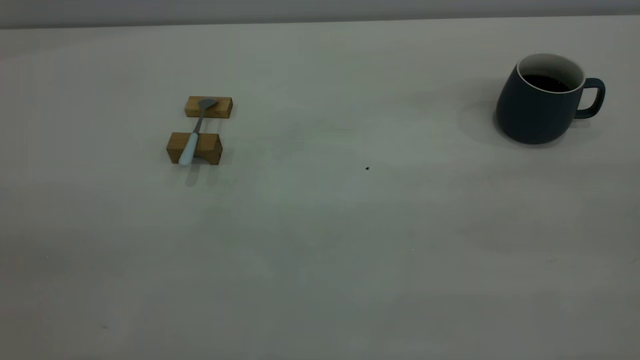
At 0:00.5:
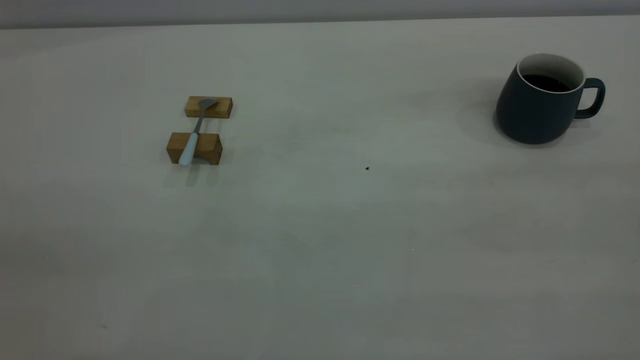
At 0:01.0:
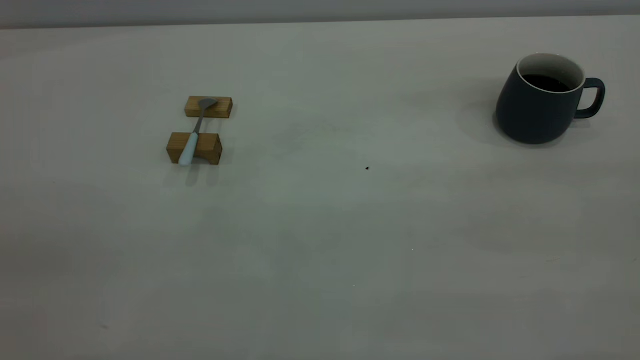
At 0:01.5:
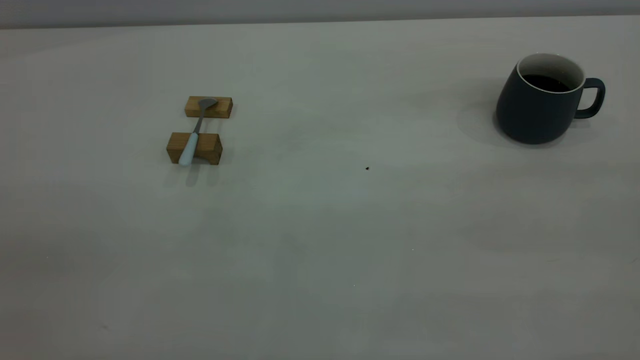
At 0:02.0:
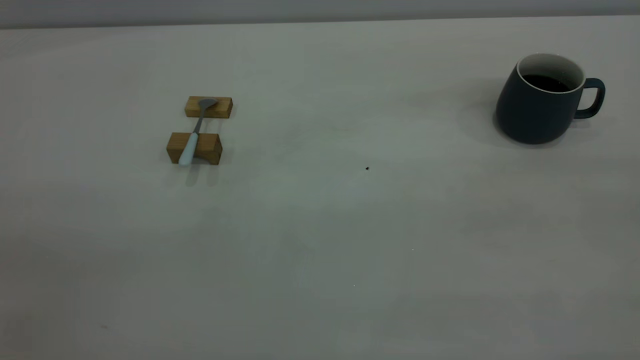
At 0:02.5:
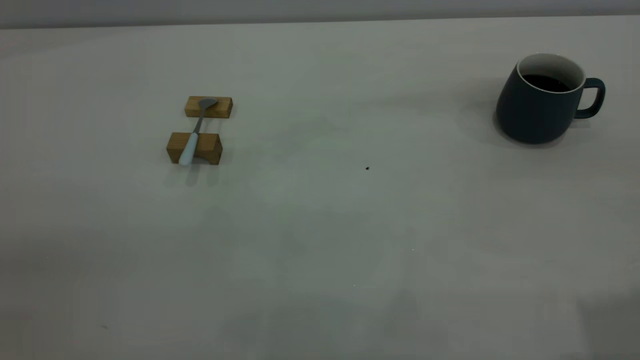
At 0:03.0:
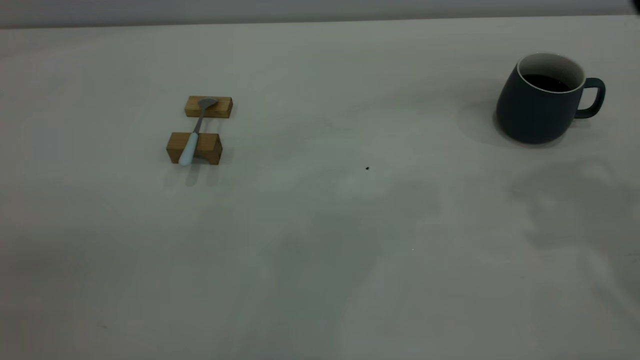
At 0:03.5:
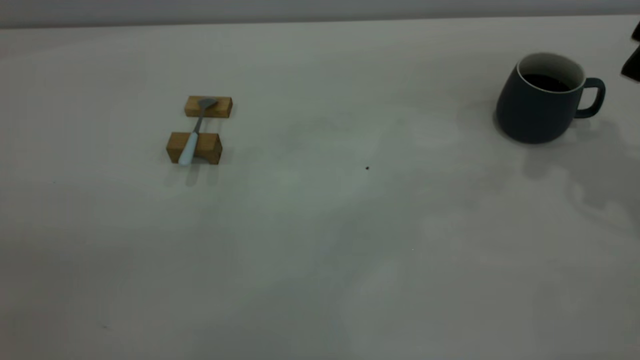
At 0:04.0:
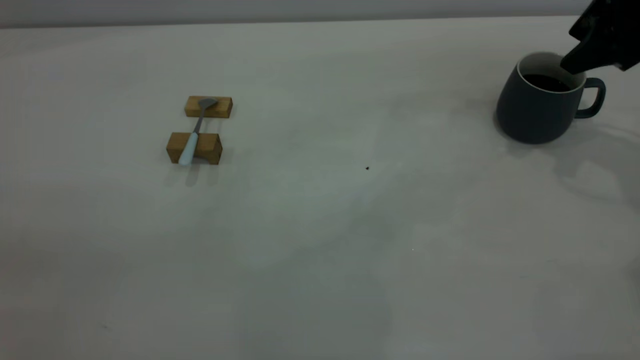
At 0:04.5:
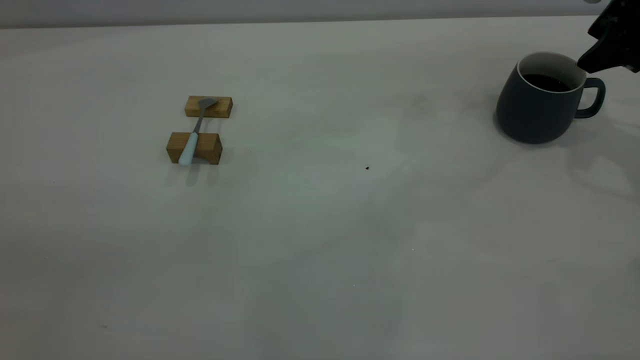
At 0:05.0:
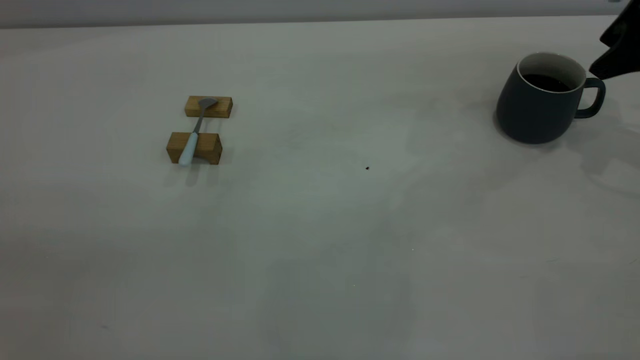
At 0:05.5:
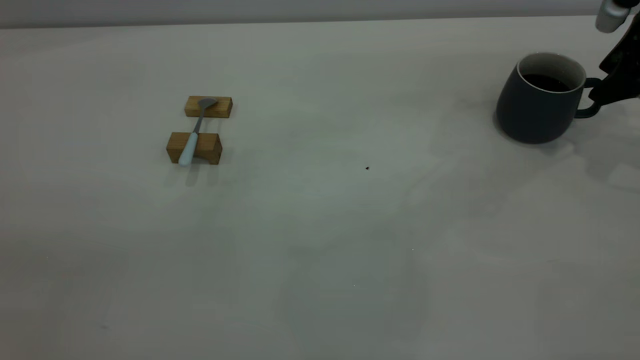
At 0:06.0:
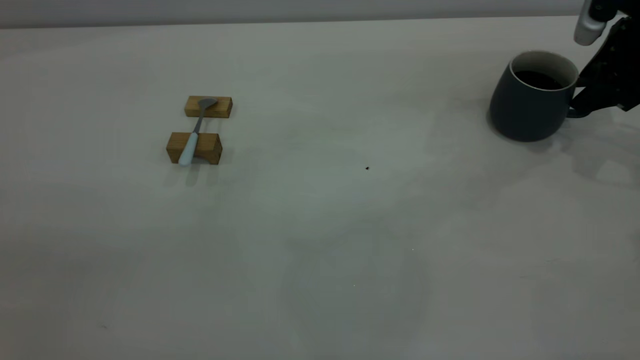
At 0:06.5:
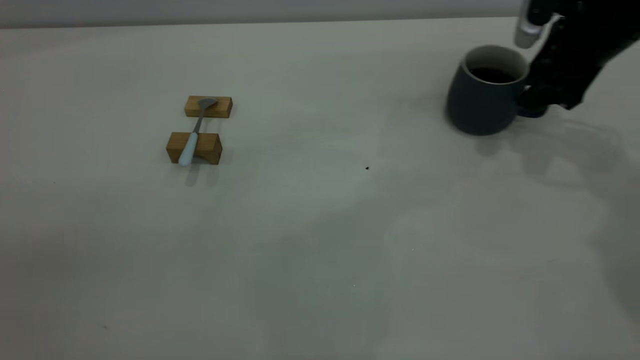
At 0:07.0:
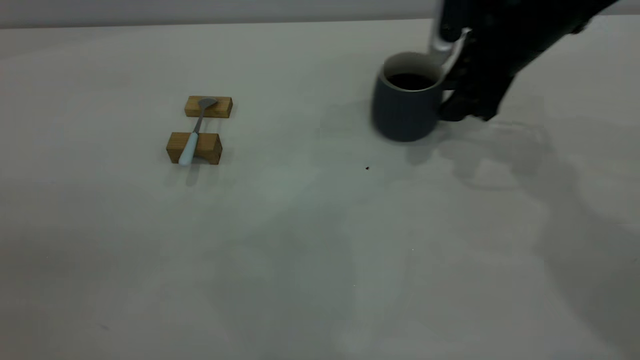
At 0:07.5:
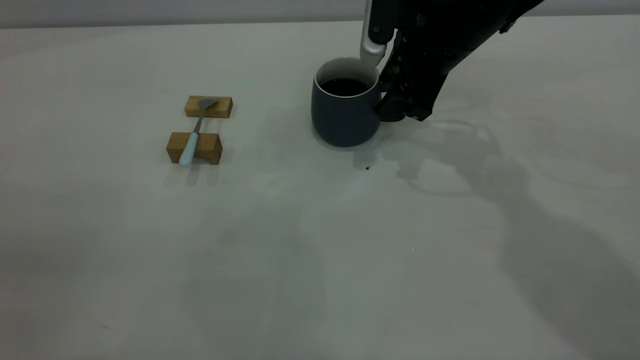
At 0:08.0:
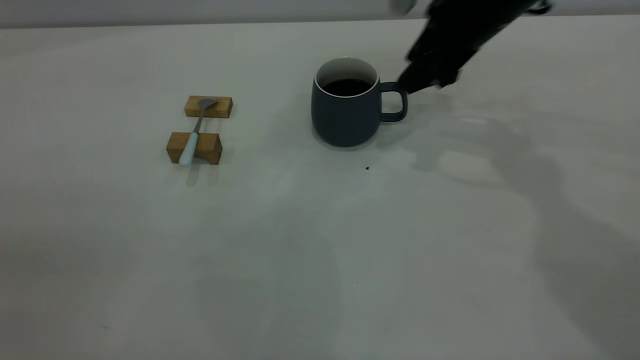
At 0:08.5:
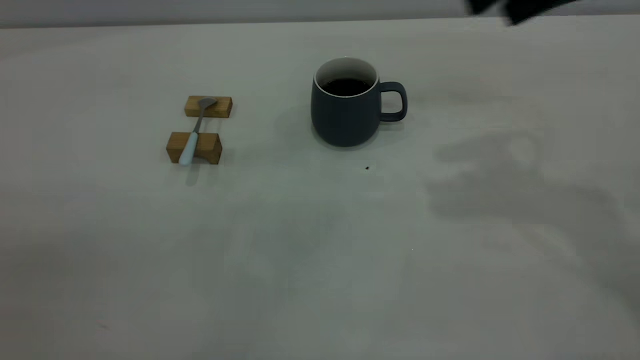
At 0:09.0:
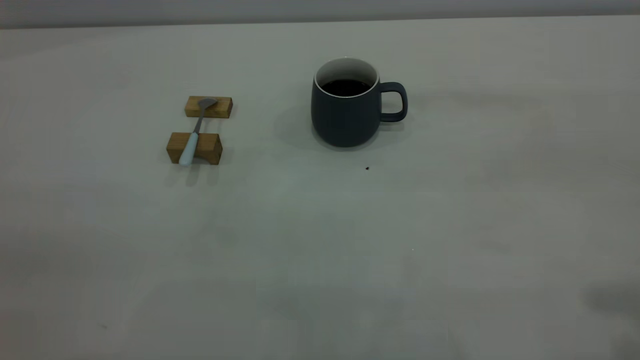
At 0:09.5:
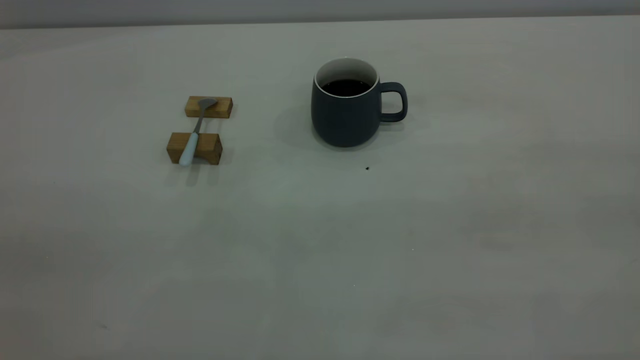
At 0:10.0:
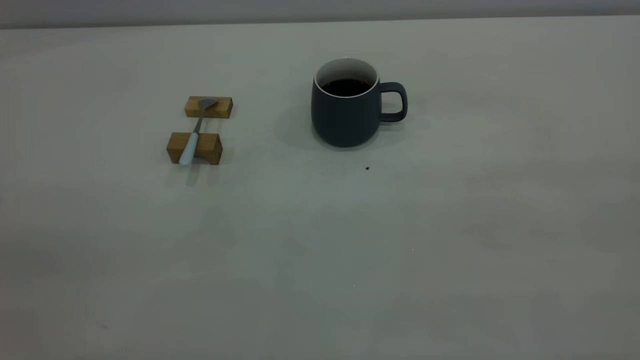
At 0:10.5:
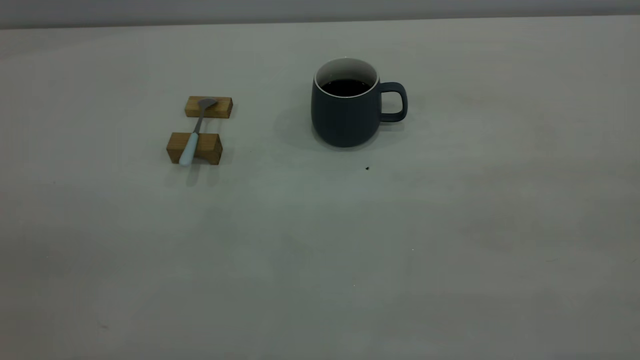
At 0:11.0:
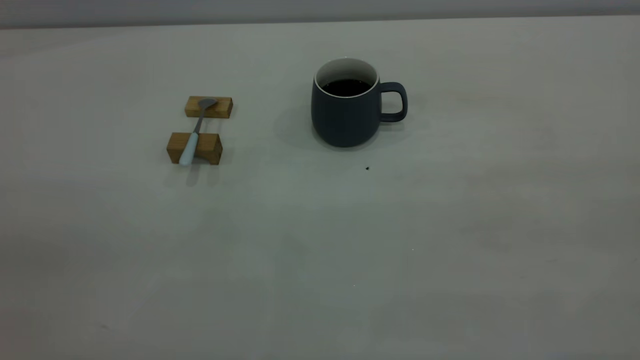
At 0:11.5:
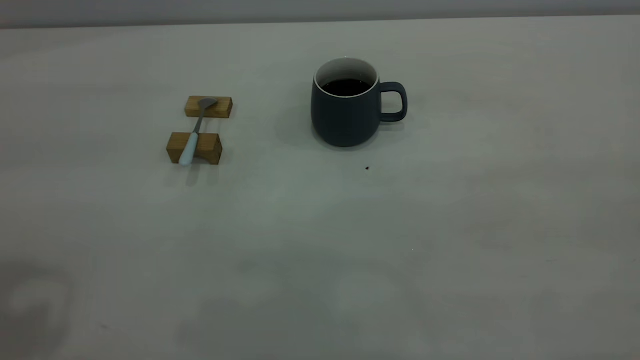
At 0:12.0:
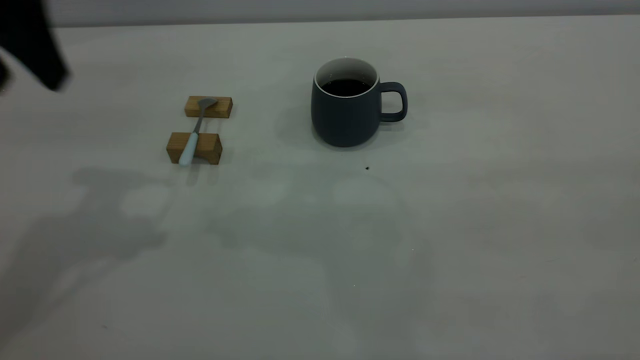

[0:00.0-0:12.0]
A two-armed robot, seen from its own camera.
Step, 0:00.0 to 0:08.0: Move the cup with coffee to the center of view.
0:00.0 to 0:02.0: The two grippers keep their place.
0:02.0 to 0:04.0: The right gripper goes about 40 cm forward and downward, and opens and closes again.
0:04.0 to 0:06.0: The right gripper is displaced downward by some 5 cm.
0:06.0 to 0:08.0: The right gripper goes roughly 15 cm to the left.
0:08.0 to 0:10.0: The right gripper shifts some 50 cm backward and upward.
0:10.0 to 0:12.0: The left gripper travels forward by approximately 30 cm.

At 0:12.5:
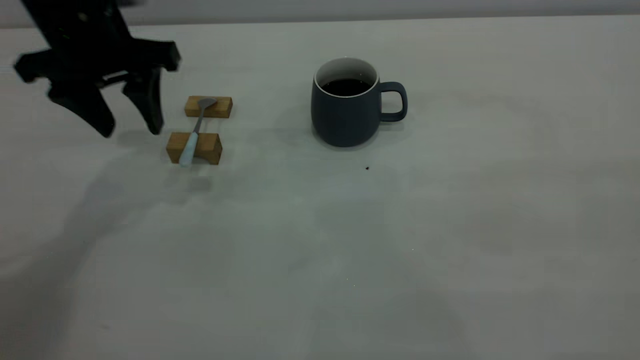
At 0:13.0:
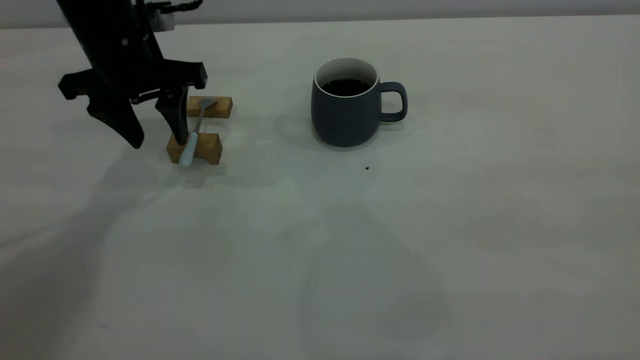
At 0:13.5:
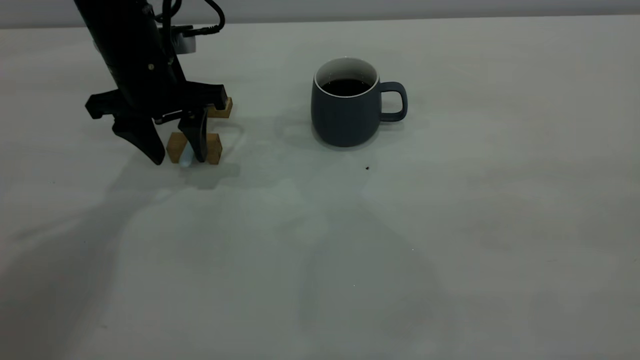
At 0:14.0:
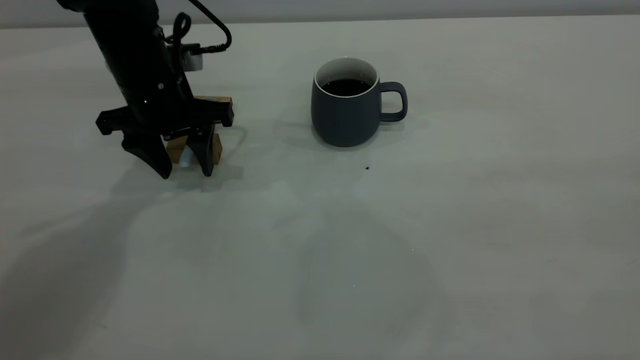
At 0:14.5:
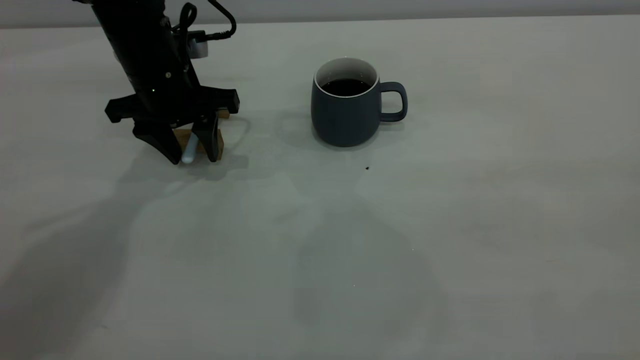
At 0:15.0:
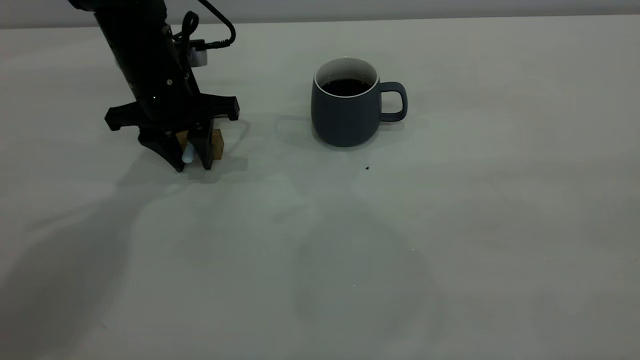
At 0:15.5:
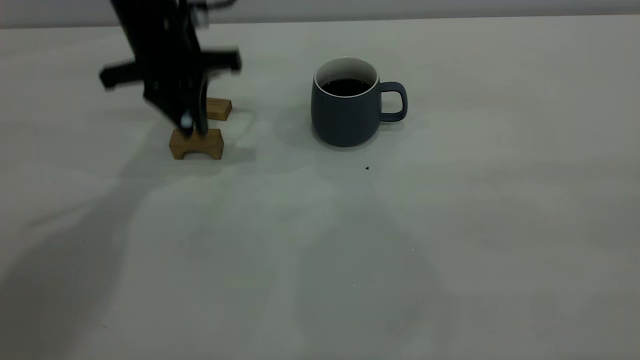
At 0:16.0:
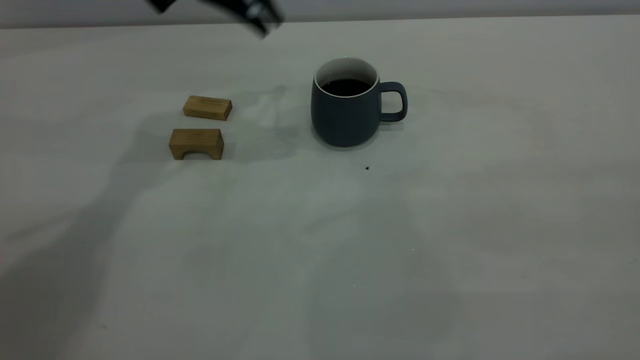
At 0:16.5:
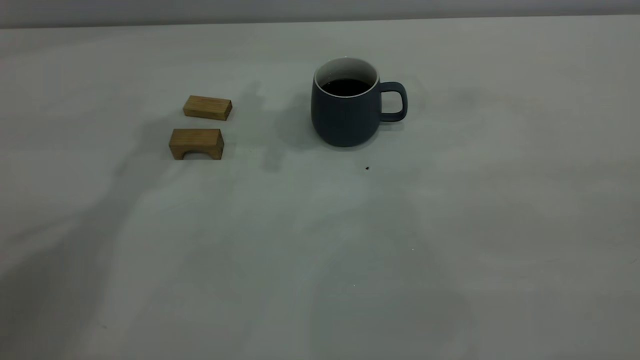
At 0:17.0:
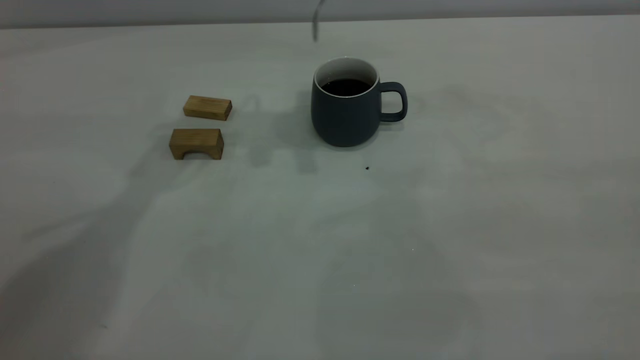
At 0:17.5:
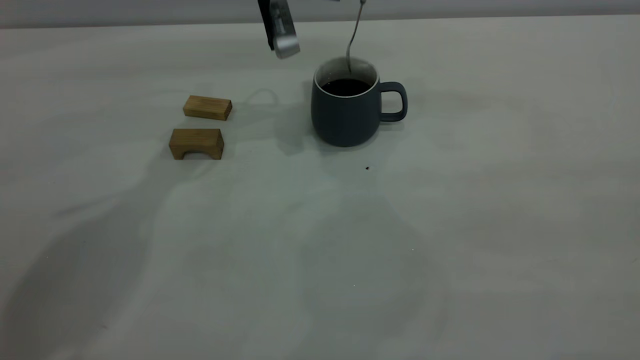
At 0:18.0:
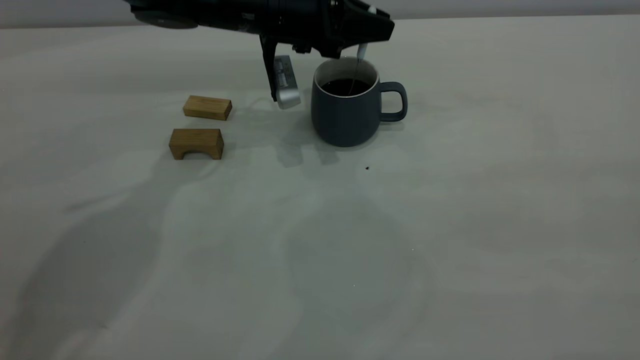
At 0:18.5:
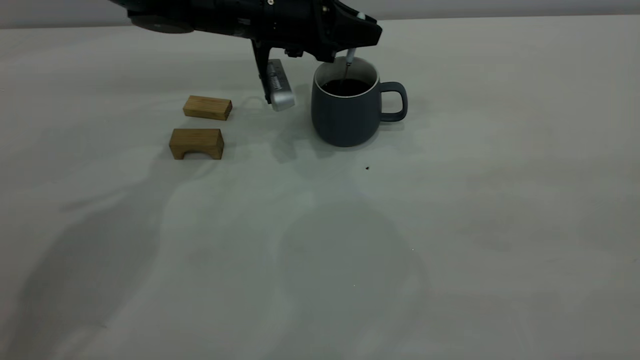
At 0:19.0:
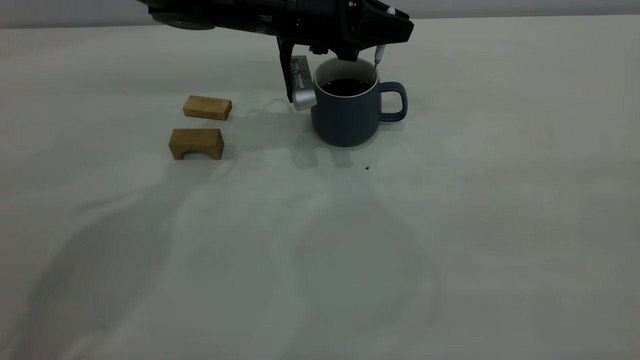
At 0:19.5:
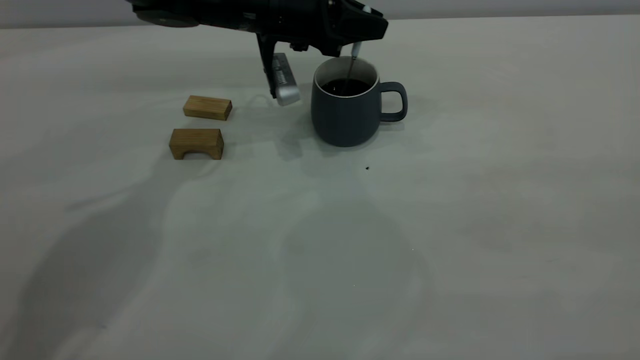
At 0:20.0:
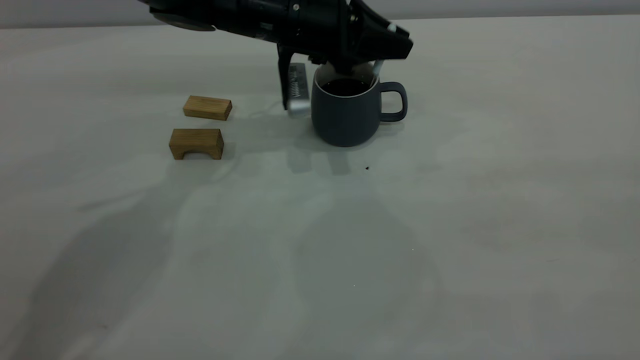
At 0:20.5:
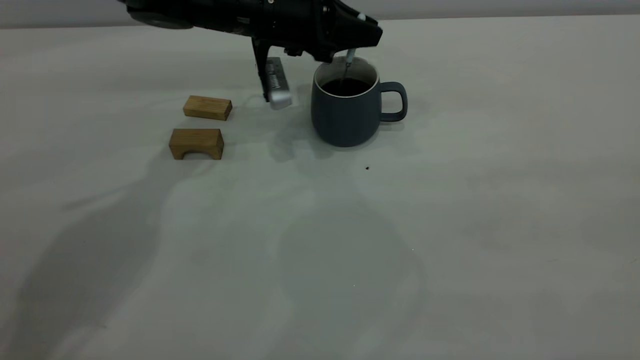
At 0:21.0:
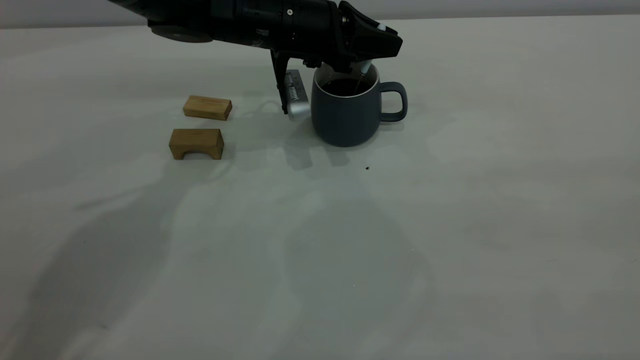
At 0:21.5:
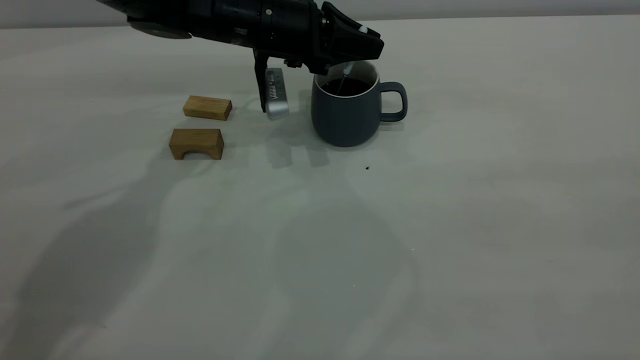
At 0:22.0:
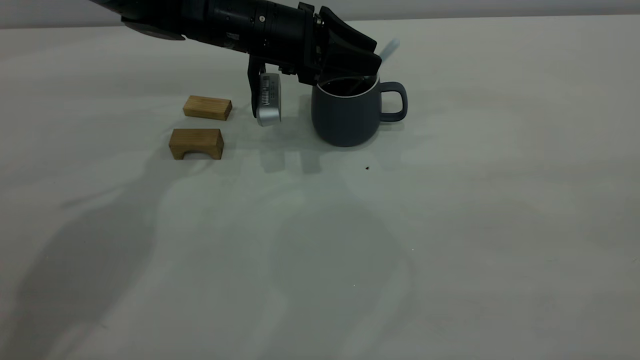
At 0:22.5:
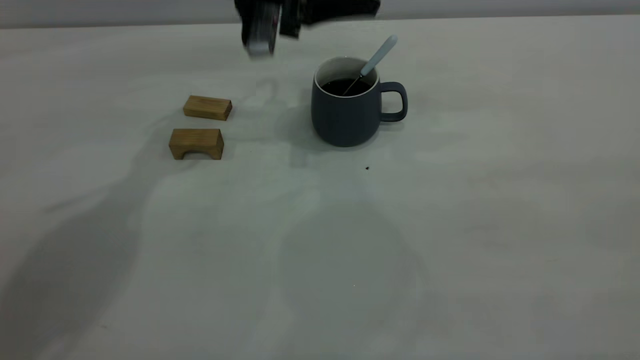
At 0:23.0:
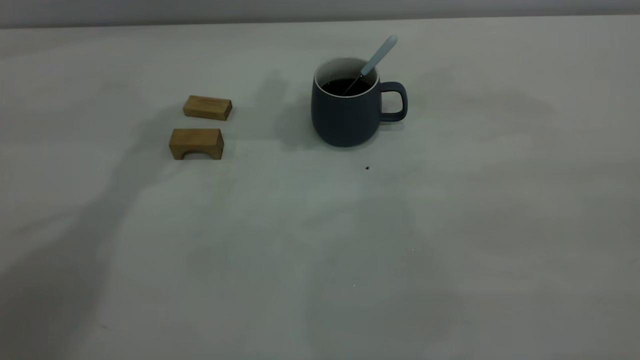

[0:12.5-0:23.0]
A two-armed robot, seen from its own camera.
Step, 0:12.5 to 0:15.5: Pick up the spoon.
Step, 0:16.0 to 0:22.0: Stir the coffee in the cup.
0:12.5 to 0:14.5: The left gripper heads downward, covering about 10 cm.
0:14.5 to 0:16.5: The left gripper shifts roughly 20 cm upward and to the right, and closes up.
0:16.5 to 0:19.0: The left gripper travels downward by about 15 cm.
0:19.0 to 0:21.0: The grippers move only a little.
0:21.0 to 0:23.0: The left gripper moves upward, some 20 cm, and opens.
